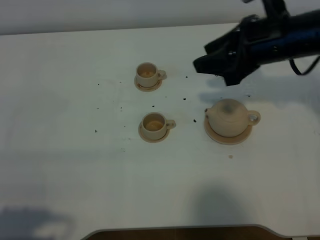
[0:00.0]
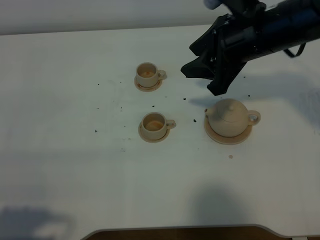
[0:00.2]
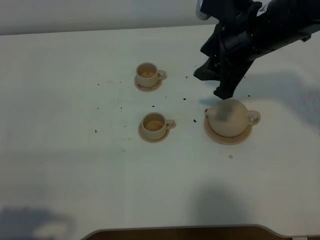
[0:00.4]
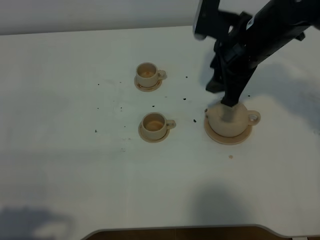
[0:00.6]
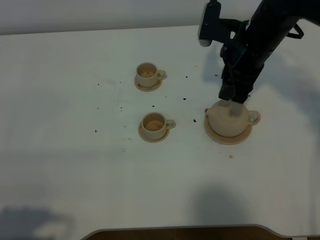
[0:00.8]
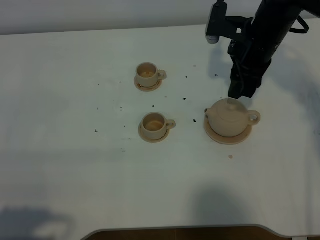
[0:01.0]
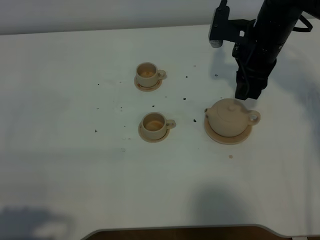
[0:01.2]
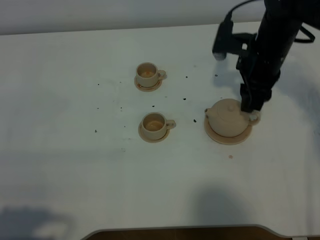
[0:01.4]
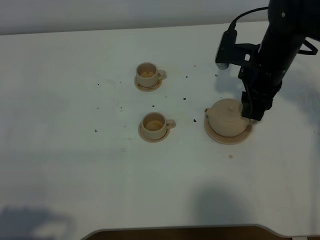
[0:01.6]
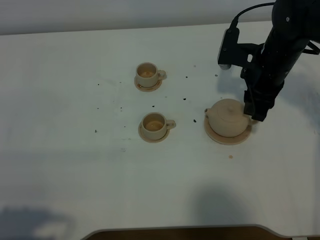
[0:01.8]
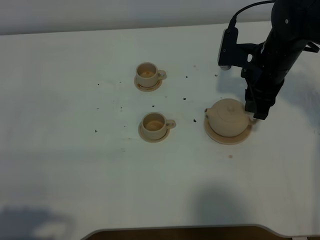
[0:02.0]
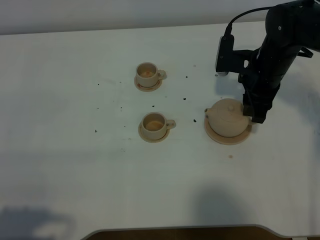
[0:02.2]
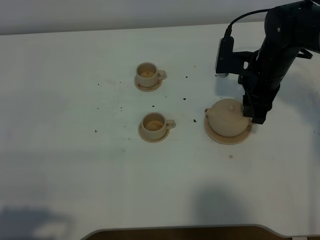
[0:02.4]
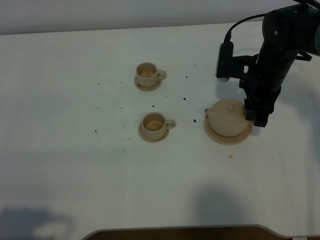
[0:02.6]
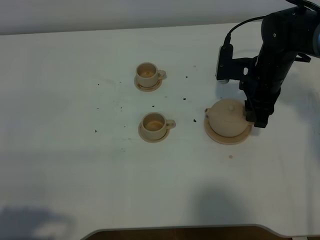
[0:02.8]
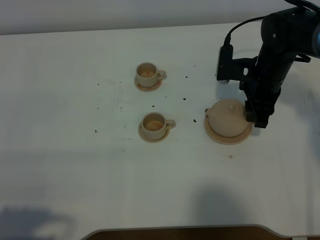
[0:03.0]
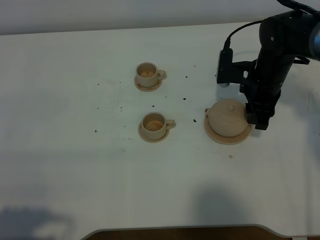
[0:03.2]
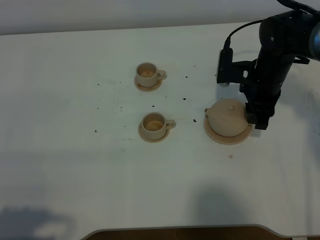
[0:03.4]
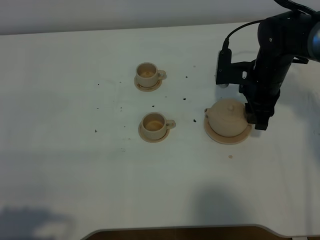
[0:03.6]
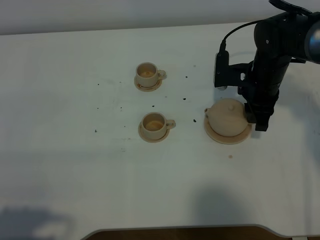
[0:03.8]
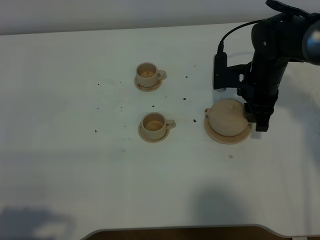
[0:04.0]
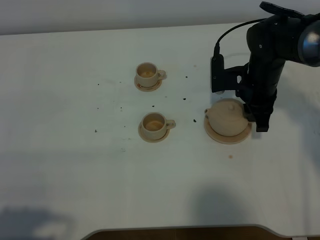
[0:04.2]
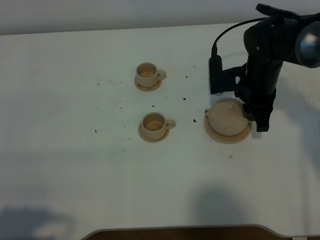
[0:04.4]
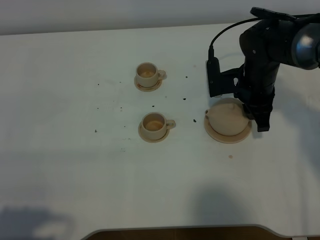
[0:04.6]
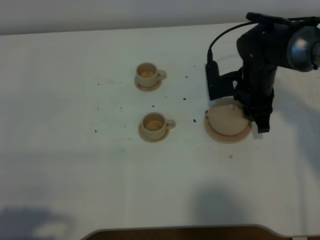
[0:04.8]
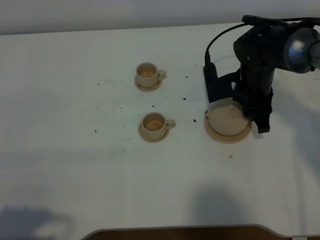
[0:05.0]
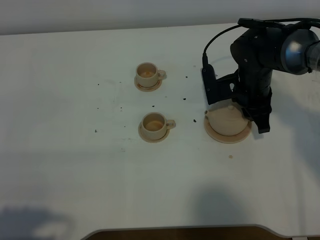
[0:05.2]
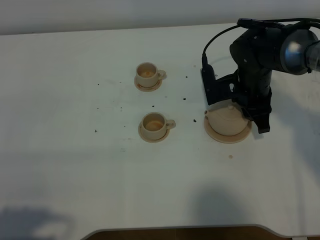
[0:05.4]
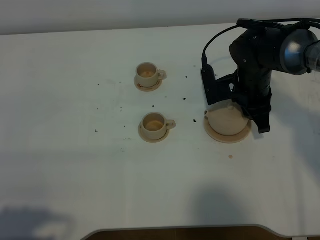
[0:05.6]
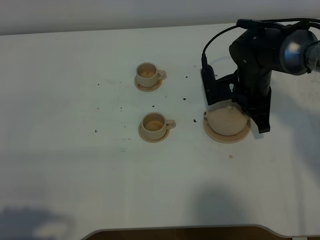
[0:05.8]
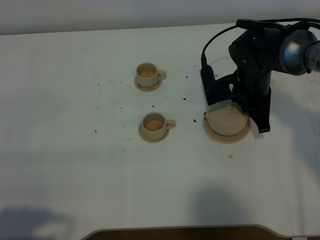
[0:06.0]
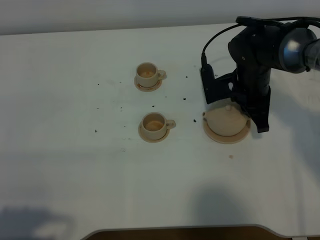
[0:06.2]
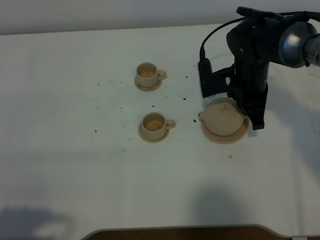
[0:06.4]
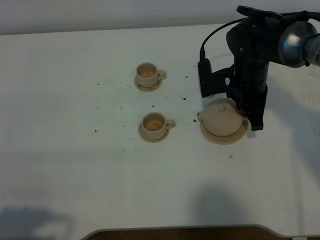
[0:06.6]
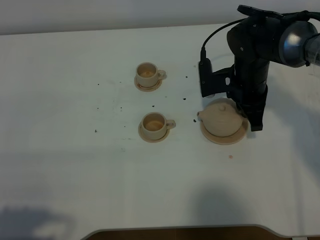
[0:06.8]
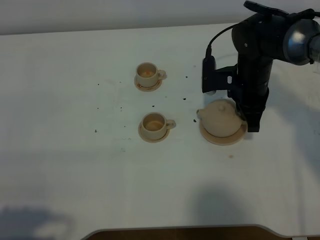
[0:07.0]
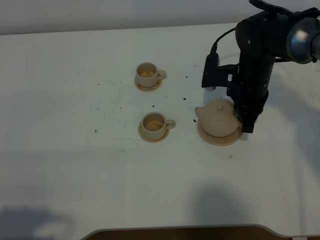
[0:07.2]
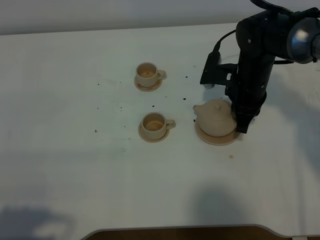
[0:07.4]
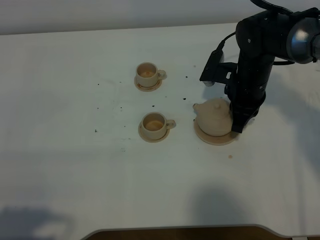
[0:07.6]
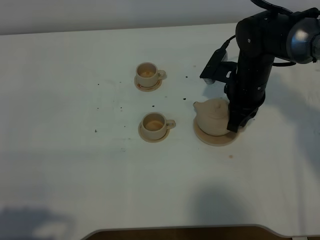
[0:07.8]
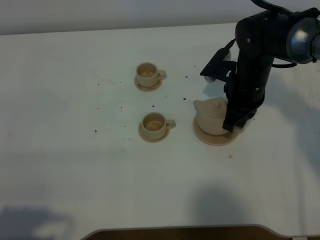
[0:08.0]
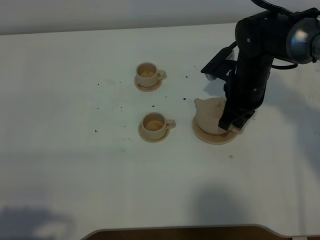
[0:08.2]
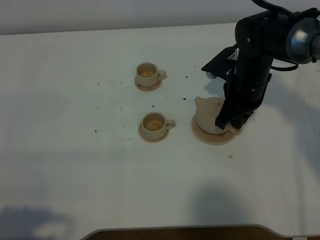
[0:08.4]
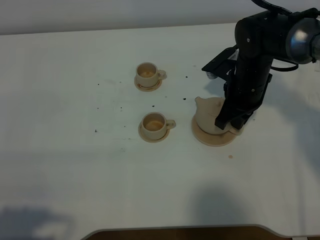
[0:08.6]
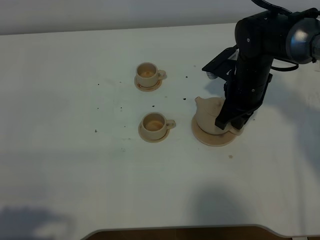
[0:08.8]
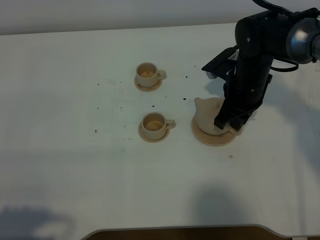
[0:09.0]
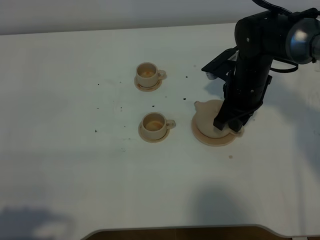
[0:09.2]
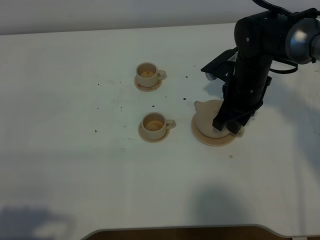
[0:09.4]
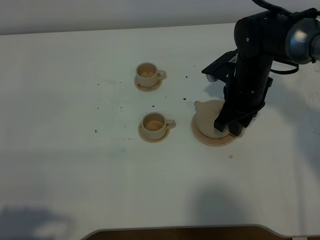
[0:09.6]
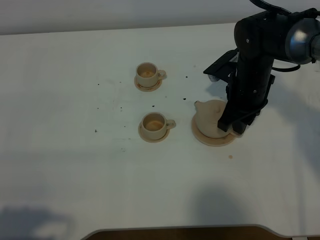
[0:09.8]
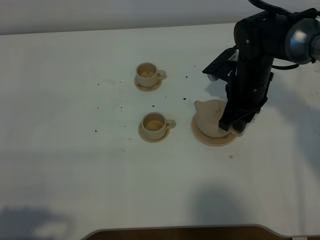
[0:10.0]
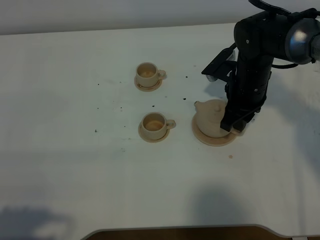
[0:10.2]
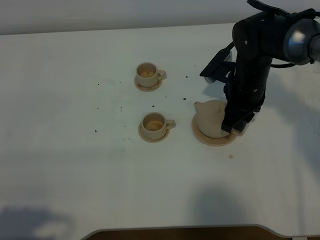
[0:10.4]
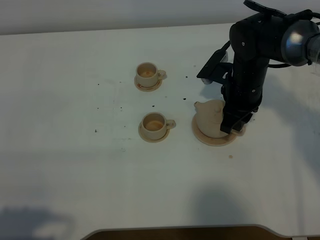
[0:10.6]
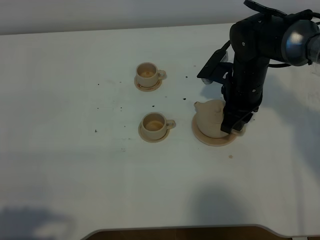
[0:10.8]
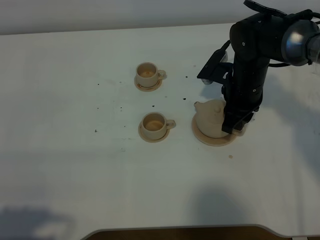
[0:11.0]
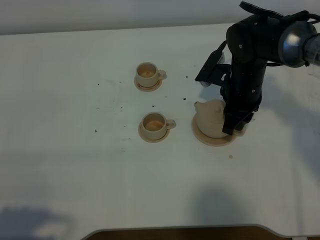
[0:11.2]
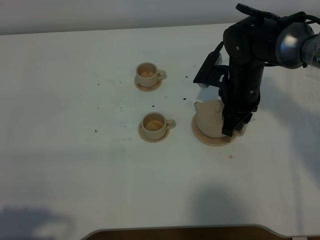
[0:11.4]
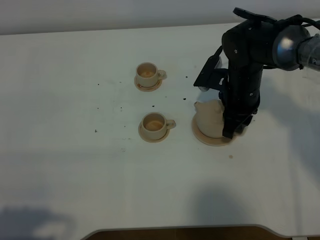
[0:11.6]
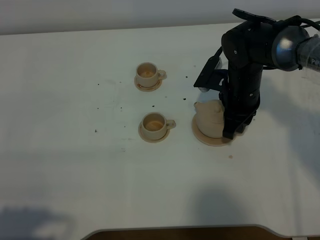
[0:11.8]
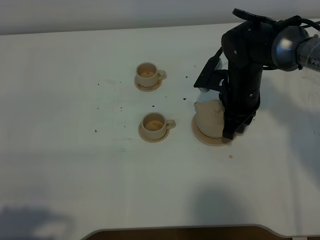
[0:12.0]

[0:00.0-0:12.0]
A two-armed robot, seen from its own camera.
Task of the whole recording: grasp the brown teapot and pour the tea into the two brown teacups one by one, put the brown teapot back in its original place.
0:00.0 to 0:01.6: The right gripper is displaced downward by some 10 cm.
0:01.6 to 0:03.0: The grippers stay close to where they were, moving slightly.
0:03.0 to 0:04.4: The grippers stay close to where they were, moving slightly.
0:04.4 to 0:06.0: The right gripper closes up.
0:09.0 to 0:10.4: The right gripper opens up.
0:10.4 to 0:12.0: There are only small adjustments of the grippers.

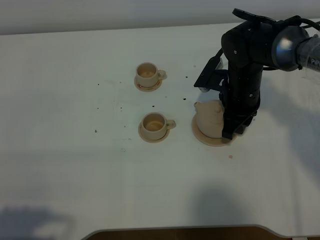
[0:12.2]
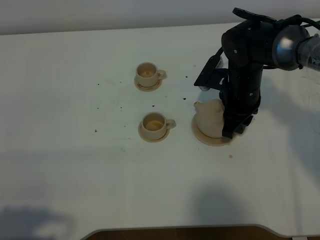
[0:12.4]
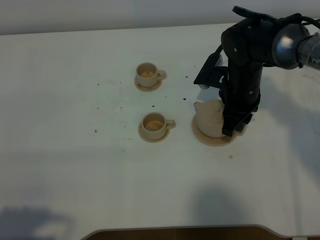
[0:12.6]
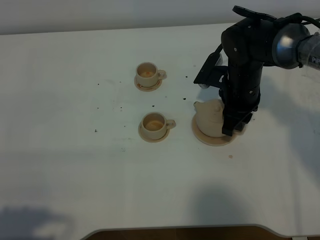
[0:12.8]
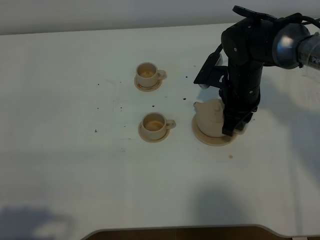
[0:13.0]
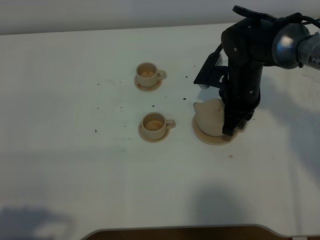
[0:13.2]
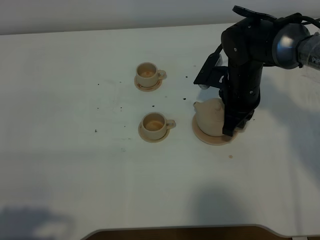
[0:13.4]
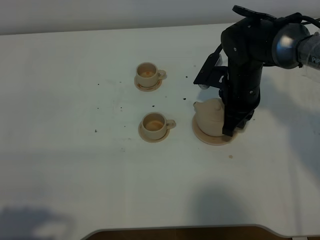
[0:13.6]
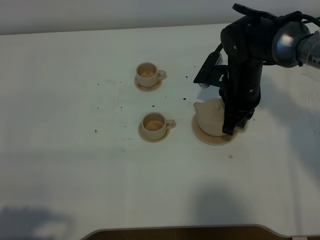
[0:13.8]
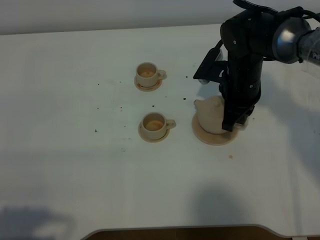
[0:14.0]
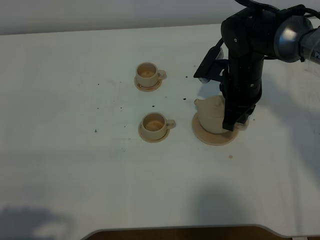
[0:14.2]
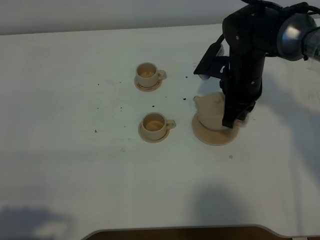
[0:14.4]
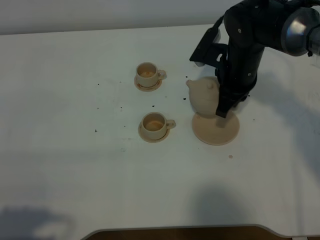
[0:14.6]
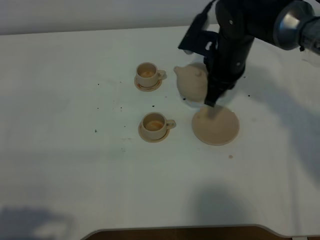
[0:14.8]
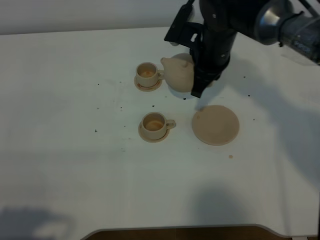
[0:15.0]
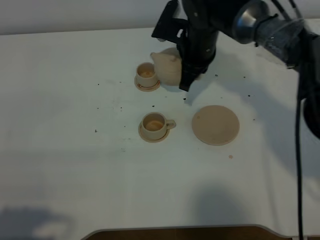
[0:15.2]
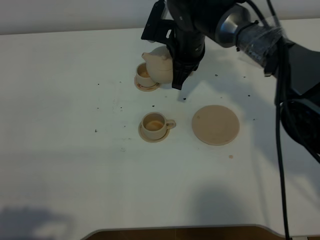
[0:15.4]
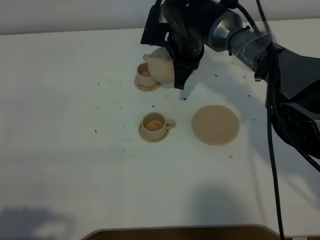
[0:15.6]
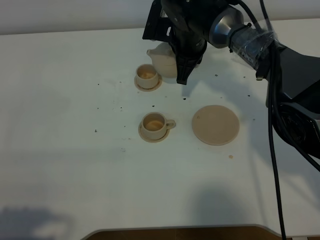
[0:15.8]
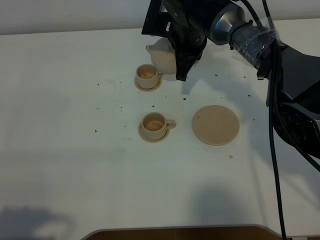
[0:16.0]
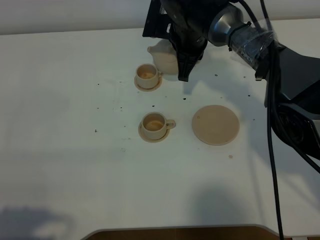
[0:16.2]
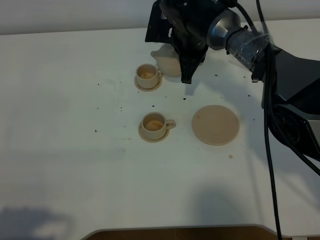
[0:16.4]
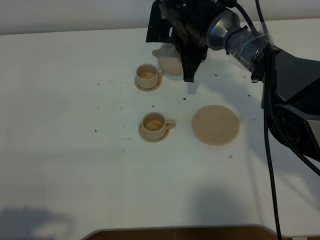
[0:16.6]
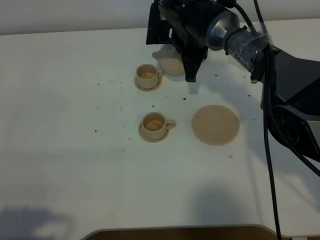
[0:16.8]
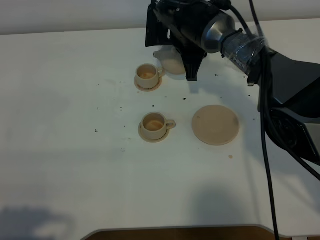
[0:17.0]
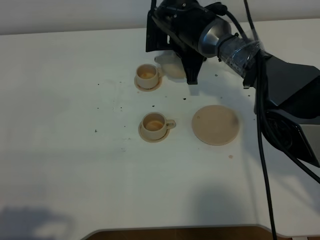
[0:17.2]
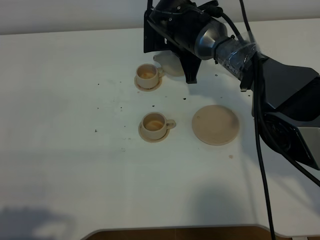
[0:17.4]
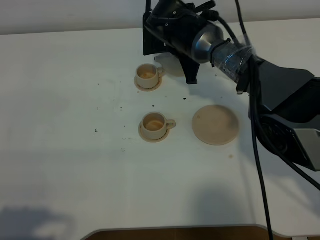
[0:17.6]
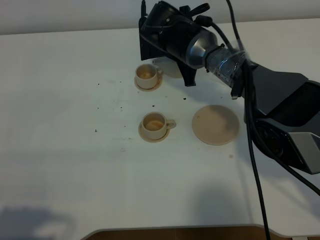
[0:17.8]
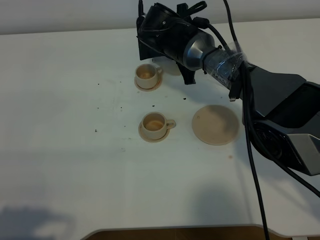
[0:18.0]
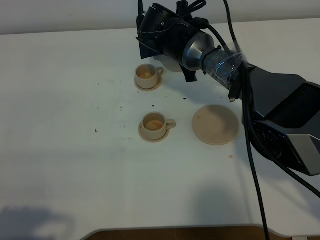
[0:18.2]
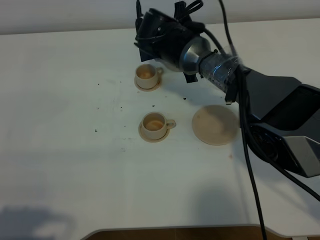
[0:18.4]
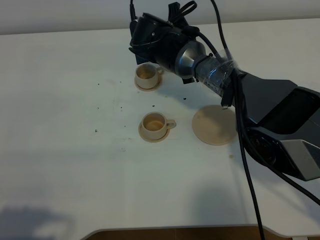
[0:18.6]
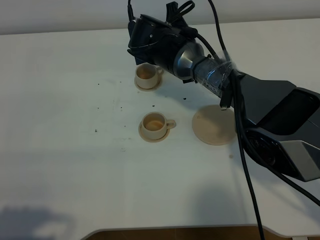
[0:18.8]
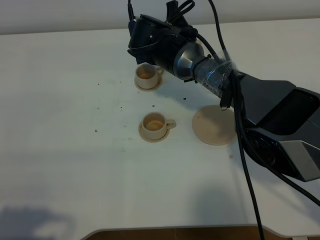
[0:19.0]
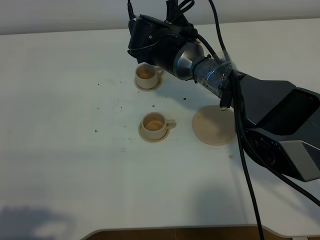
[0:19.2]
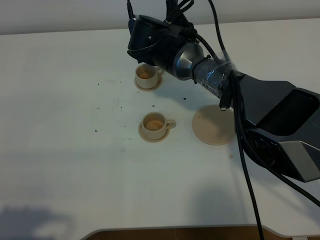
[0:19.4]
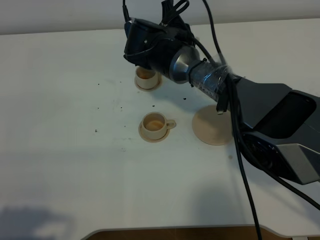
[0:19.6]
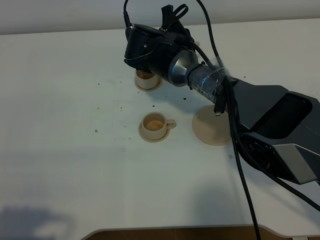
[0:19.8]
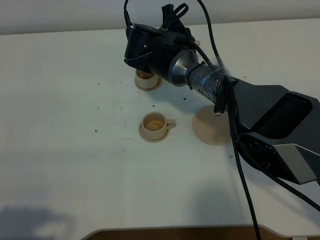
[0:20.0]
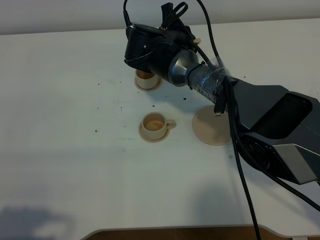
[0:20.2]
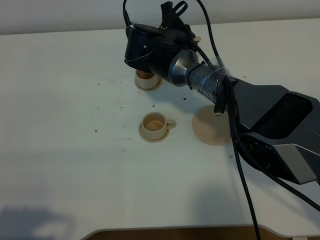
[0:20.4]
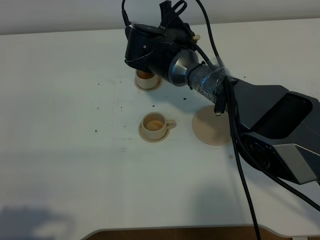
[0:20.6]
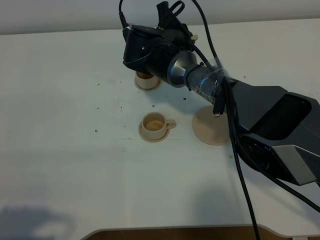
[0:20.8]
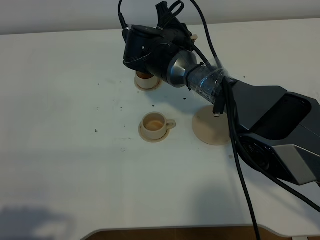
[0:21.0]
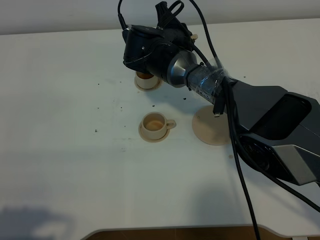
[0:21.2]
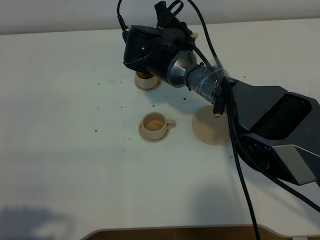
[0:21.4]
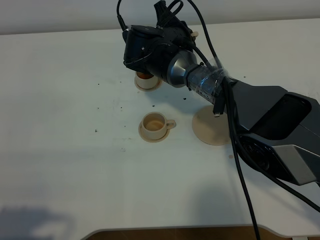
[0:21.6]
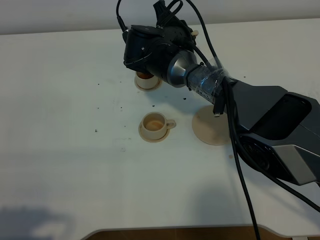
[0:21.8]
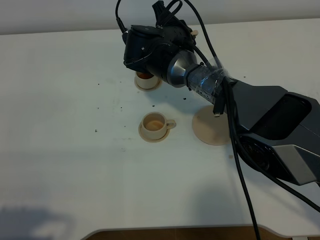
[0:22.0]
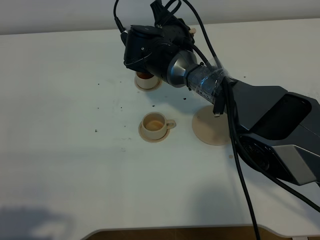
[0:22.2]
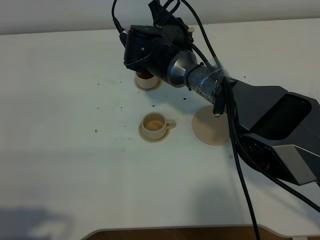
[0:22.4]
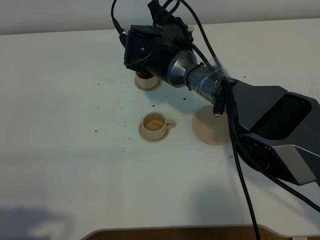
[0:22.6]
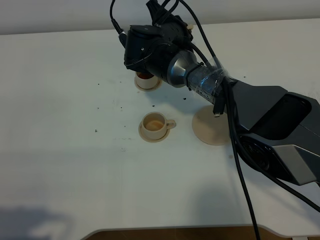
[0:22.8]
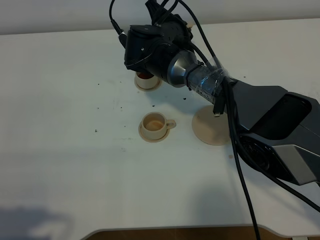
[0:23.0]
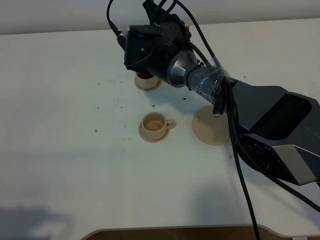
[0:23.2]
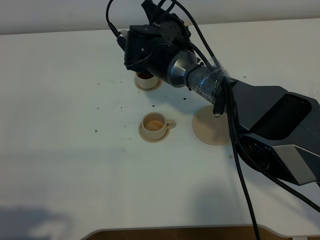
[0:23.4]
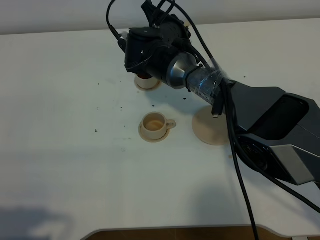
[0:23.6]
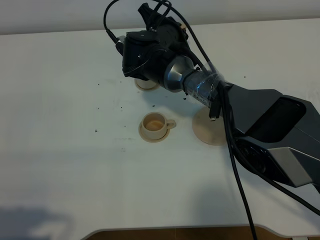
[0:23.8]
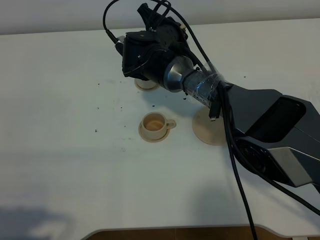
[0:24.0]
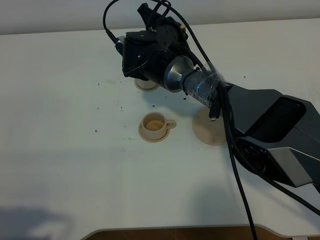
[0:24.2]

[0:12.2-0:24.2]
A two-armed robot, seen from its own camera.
Task of the whole recording: grasp the brown teapot and pour the tea into the two brown teacups one by one, put the brown teapot back in its original place.
Step, 0:12.2 to 0:14.2: Pick up the teapot with the right gripper.
0:12.2 to 0:13.8: The right gripper closes up.
0:13.8 to 0:15.2: The right gripper goes about 10 cm to the left and forward.
0:15.2 to 0:16.6: There are only small adjustments of the grippers.
0:18.2 to 0:21.2: The grippers make only small movements.
0:21.2 to 0:24.2: There are only small adjustments of the grippers.
